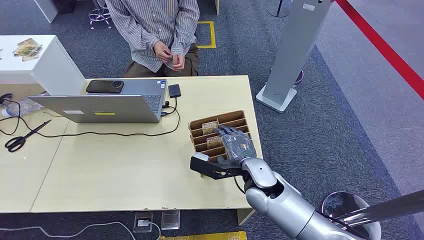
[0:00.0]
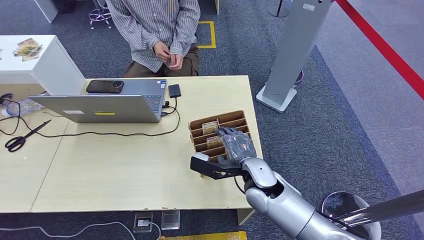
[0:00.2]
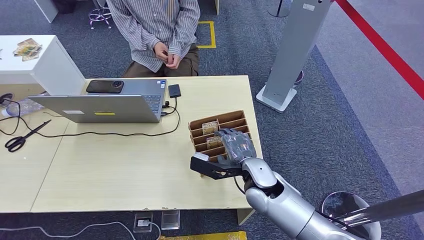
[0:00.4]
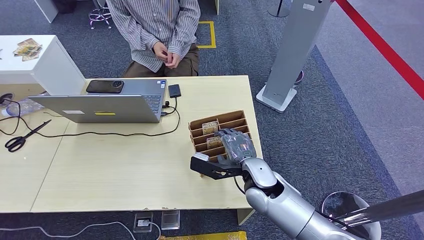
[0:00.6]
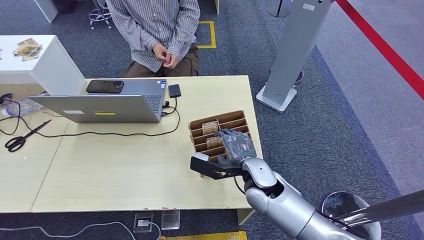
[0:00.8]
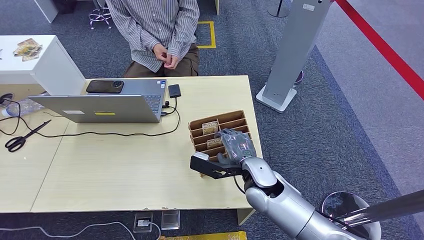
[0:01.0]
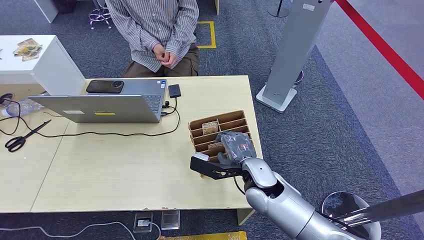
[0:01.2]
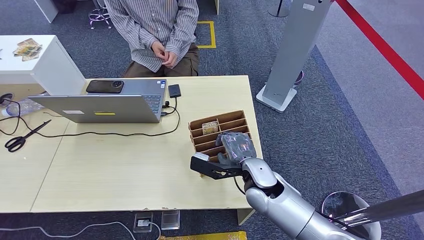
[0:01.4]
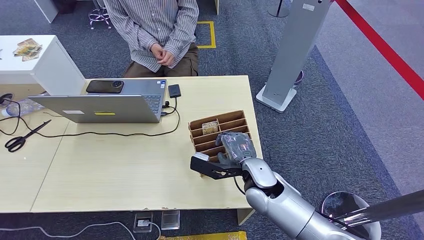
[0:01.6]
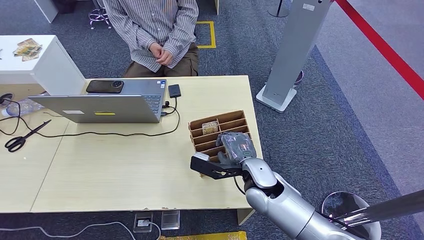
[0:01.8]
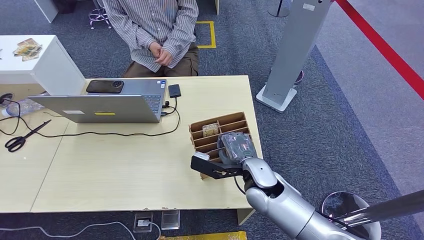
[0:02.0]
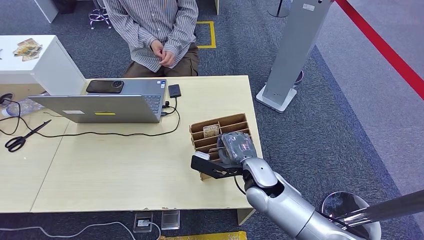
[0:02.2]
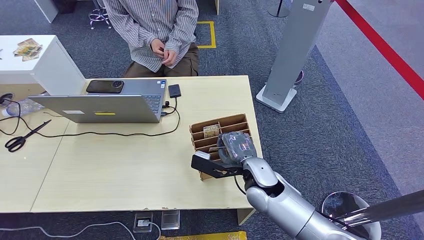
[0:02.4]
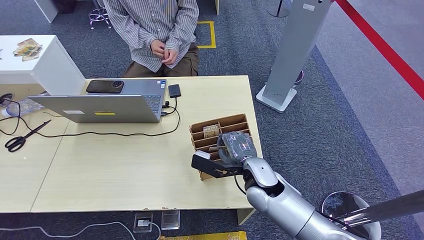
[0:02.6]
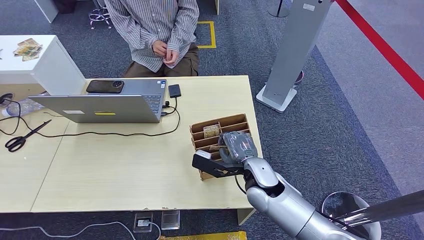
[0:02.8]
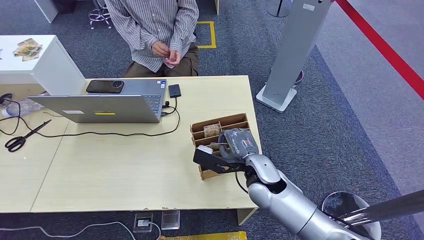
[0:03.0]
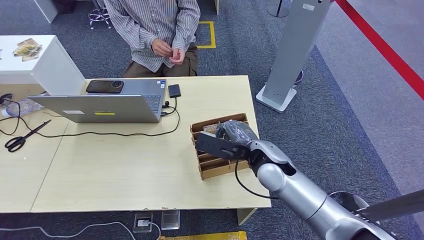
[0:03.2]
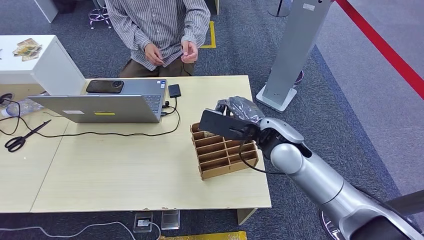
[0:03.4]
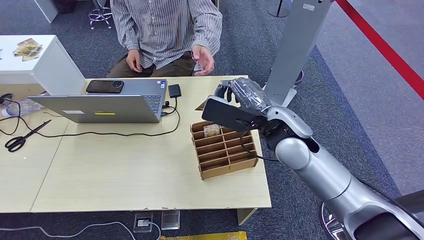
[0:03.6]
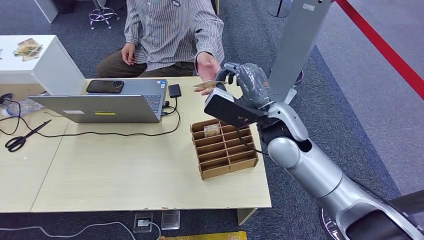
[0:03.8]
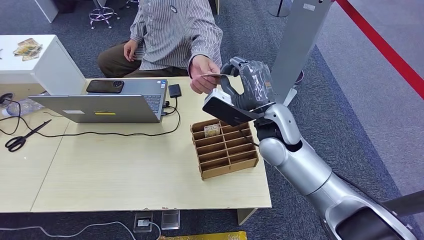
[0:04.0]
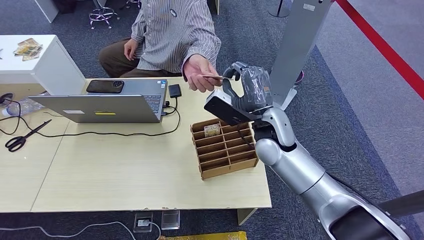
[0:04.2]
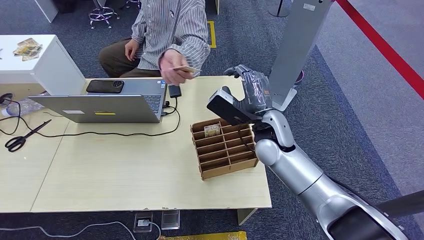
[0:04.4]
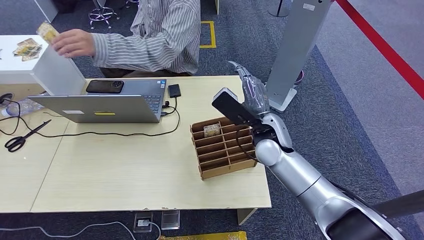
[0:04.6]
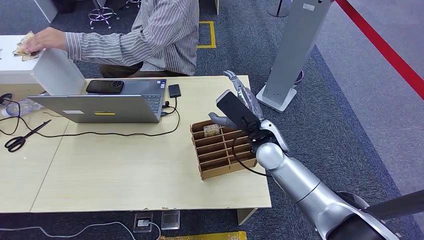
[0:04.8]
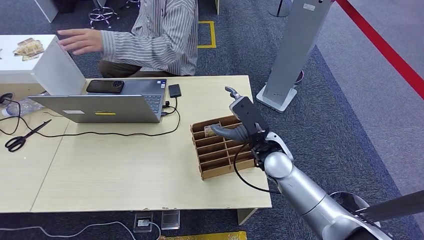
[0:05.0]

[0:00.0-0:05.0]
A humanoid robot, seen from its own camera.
Step, 0:00.0 to 0:03.4: Pick up the key card from the card box.
Step, 0:04.4 to 0:05.0: Hand the key card to the target.
0:01.6 to 0:03.4: The right hand goes about 10 cm upward.
0:03.4 to 0:05.0: The right hand shifts about 5 cm downward.
